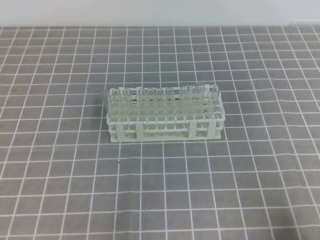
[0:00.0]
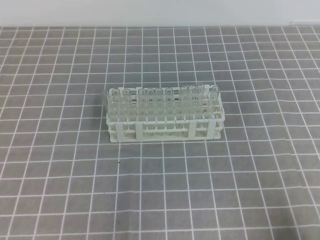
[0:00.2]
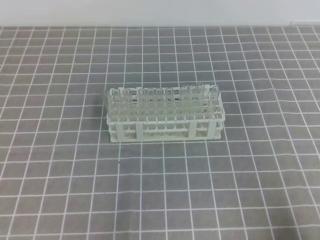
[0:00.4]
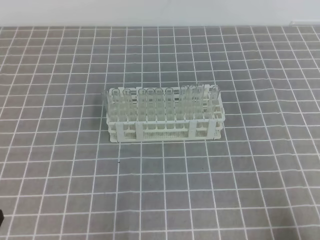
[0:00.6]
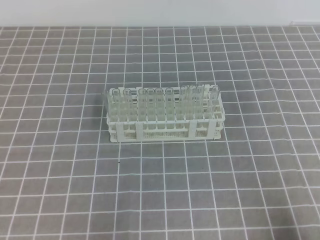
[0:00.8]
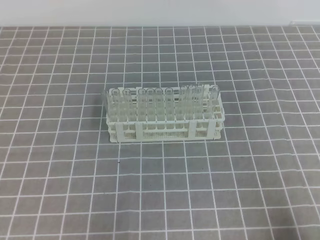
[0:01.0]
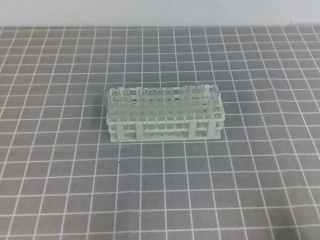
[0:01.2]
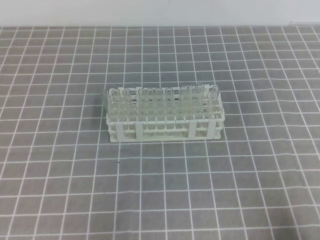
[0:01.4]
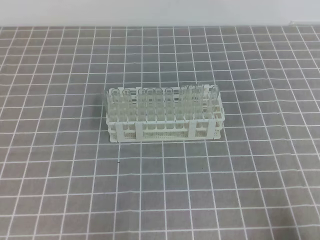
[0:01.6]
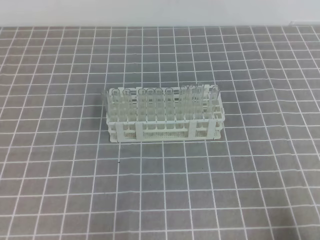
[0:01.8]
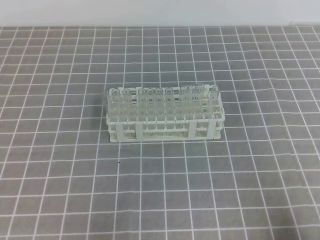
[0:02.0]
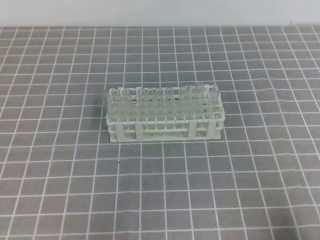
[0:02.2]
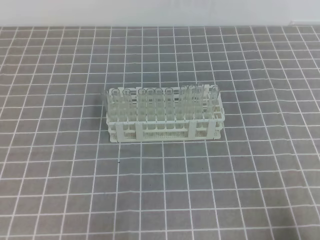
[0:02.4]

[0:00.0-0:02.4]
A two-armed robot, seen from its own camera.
0:01.2 to 0:02.4: Both grippers stay about where they are.
